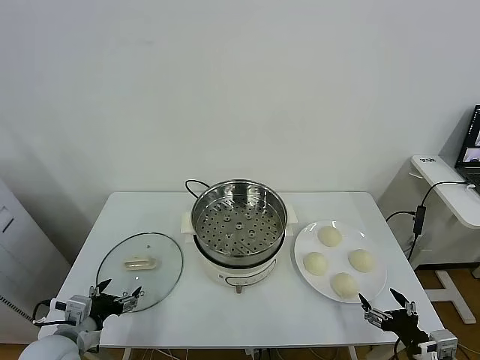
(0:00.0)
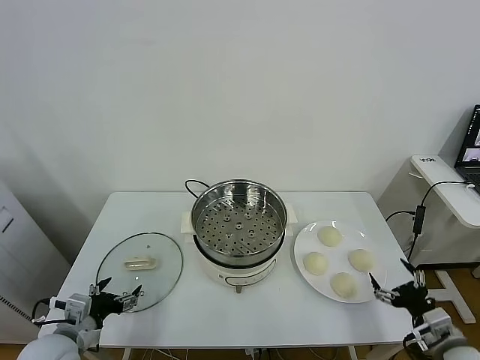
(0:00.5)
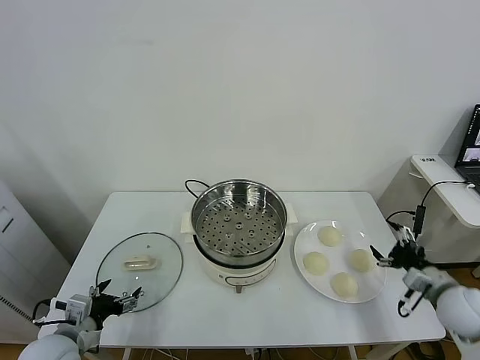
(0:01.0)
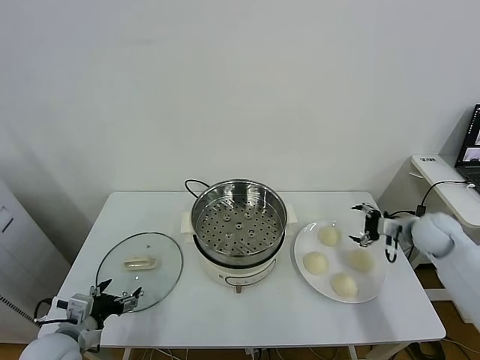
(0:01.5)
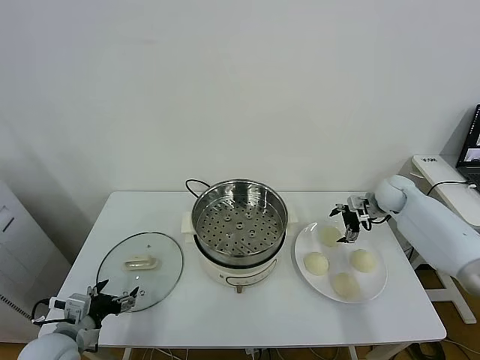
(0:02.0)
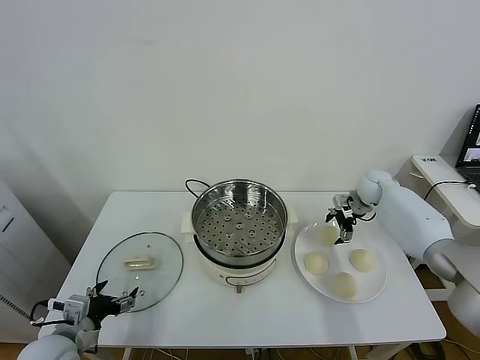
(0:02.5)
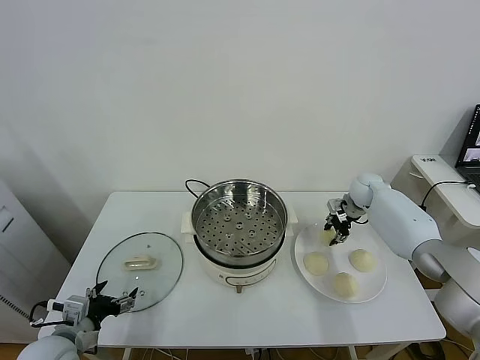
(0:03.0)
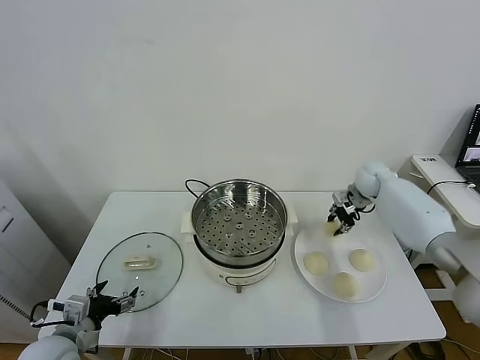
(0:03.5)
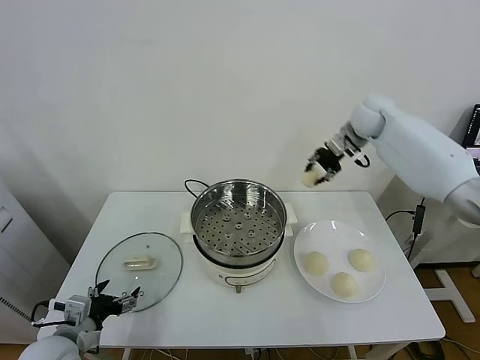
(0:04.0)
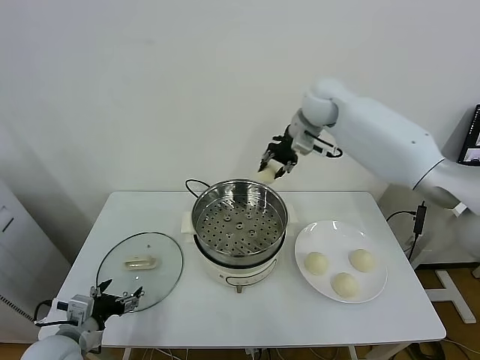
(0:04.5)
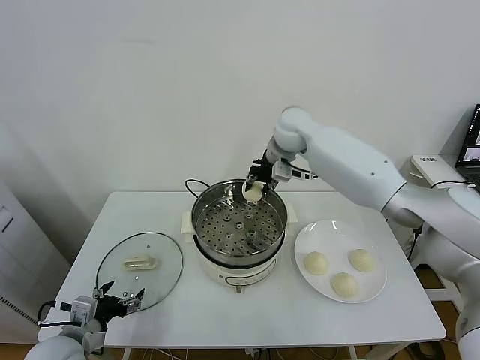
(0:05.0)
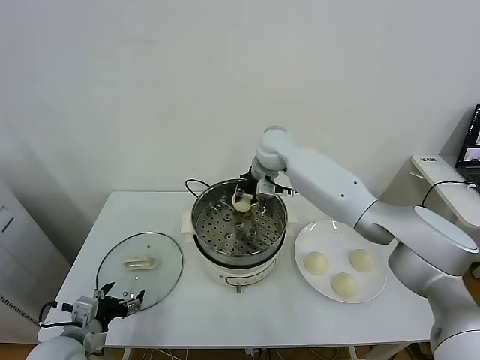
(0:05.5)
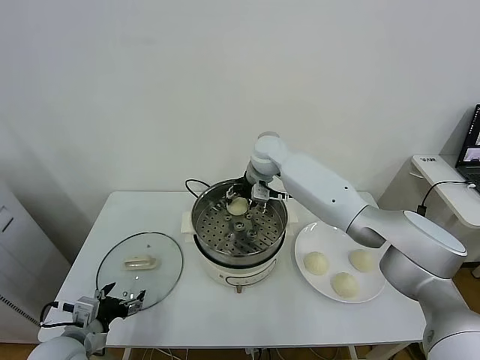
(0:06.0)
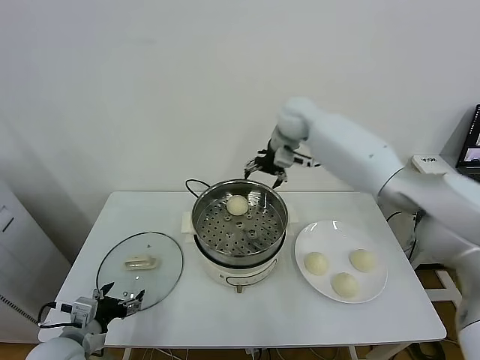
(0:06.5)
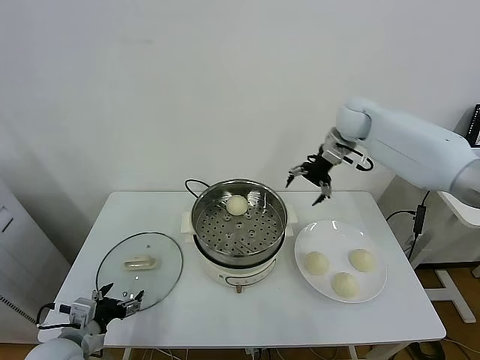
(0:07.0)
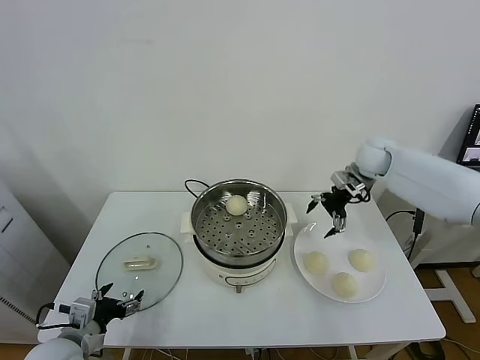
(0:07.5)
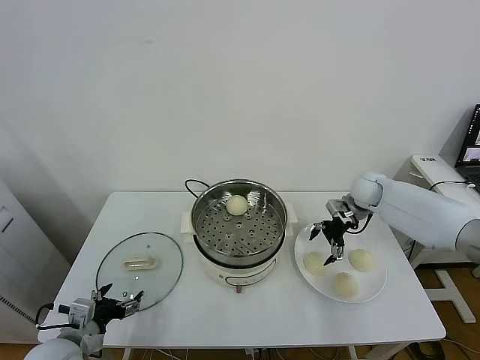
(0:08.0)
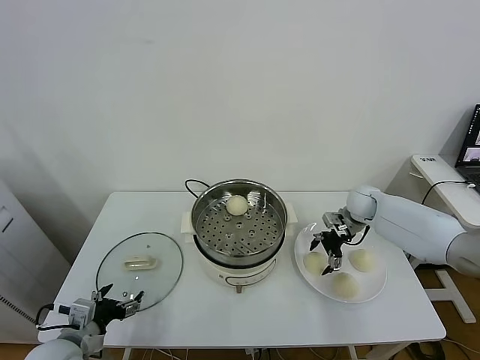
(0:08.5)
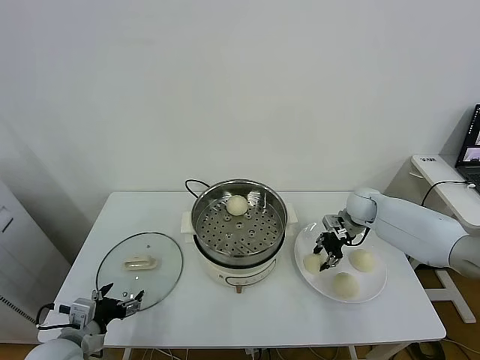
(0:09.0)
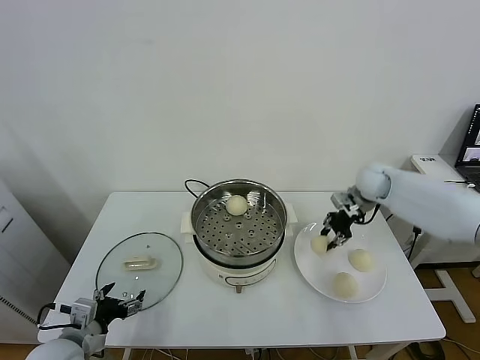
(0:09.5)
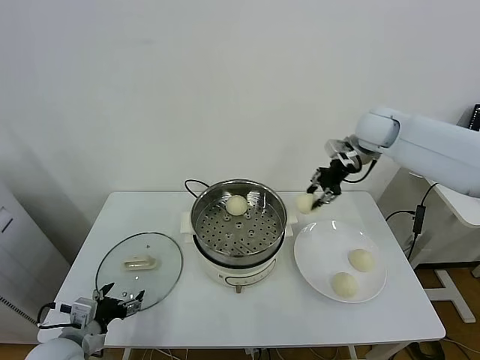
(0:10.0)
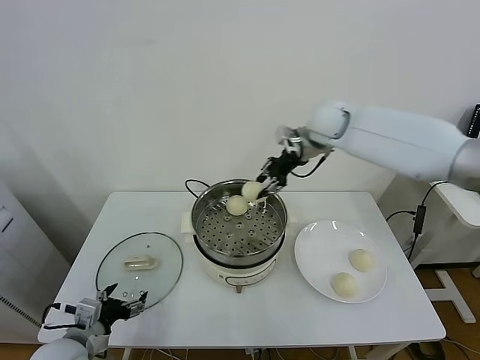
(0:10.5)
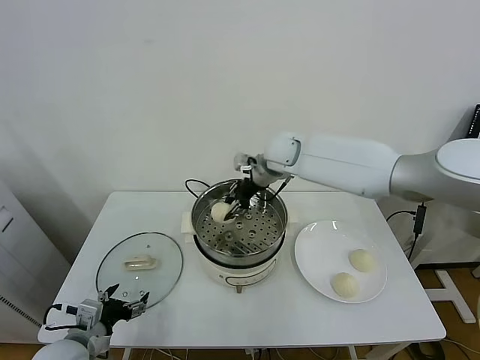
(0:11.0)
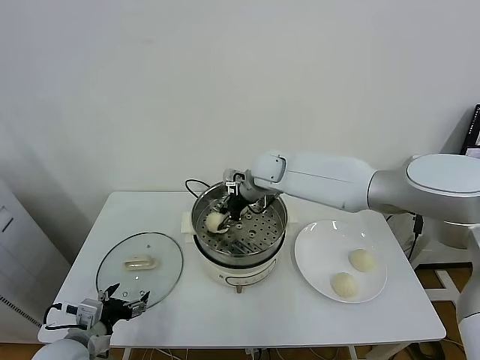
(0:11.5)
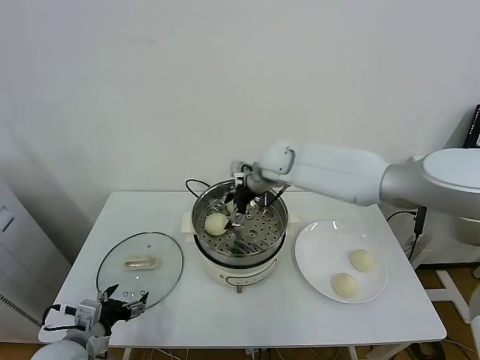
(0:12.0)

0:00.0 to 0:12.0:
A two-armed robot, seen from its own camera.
Task of the whole recording: take steamed baozi put them in steamer.
Step, 0:00.0 to 0:02.5: Grasp the baozi in the plate with right gripper.
Step, 0:03.0 to 0:06.0: Place the baozi on the steamer with right gripper.
Step, 0:06.5 to 0:08.5: Grasp the baozi in the plate with right gripper.
Step, 0:09.0 to 0:12.0: Place the baozi on the steamer with right gripper.
0:02.0 to 0:04.0: The right gripper travels upward and to the left by some 25 cm, and closes up.
0:04.0 to 0:06.0: The right gripper goes approximately 20 cm to the left and downward, and opens its fingers.
0:06.0 to 0:08.0: The right gripper is displaced to the right and downward by approximately 30 cm.
0:08.0 to 0:10.0: The right gripper goes approximately 20 cm upward, and closes its fingers.
0:10.0 to 0:12.0: The right gripper goes some 20 cm to the left and downward, and opens up.

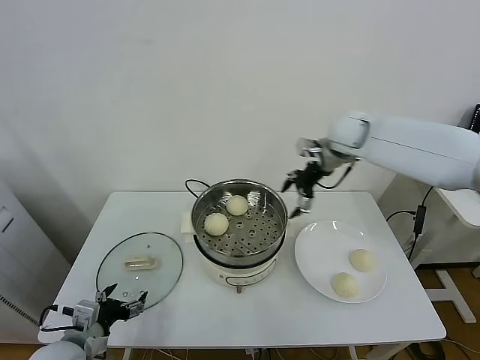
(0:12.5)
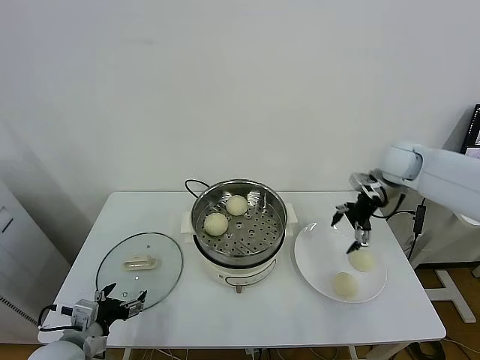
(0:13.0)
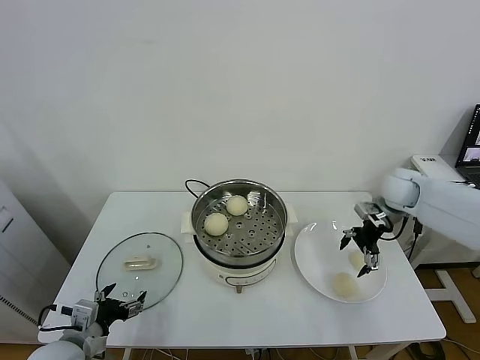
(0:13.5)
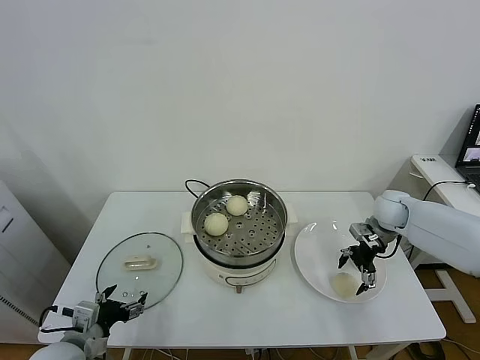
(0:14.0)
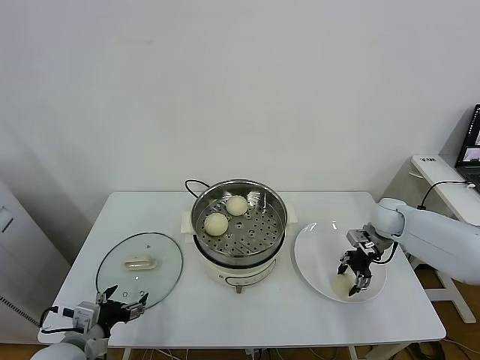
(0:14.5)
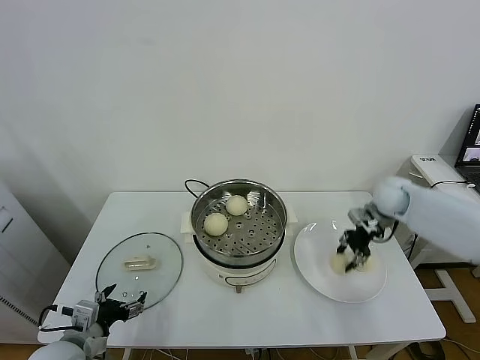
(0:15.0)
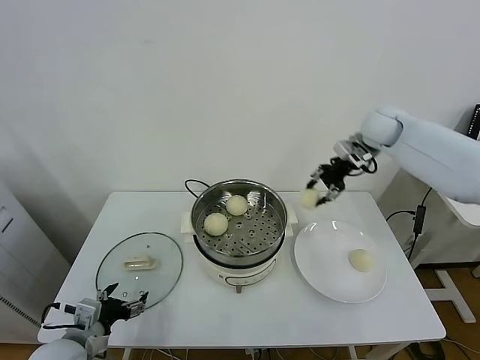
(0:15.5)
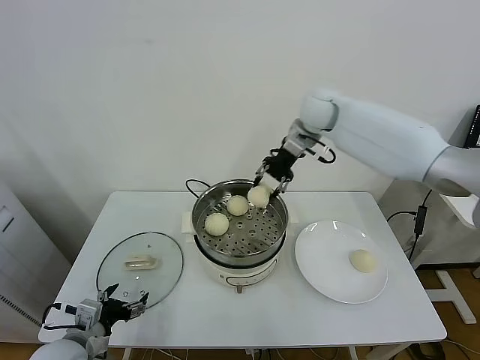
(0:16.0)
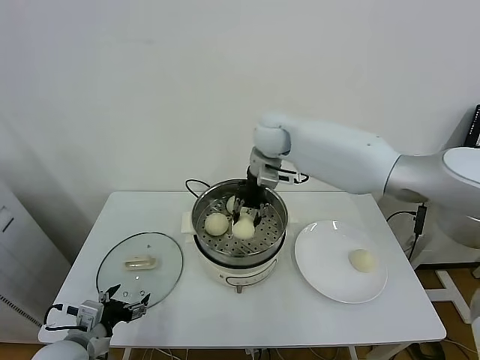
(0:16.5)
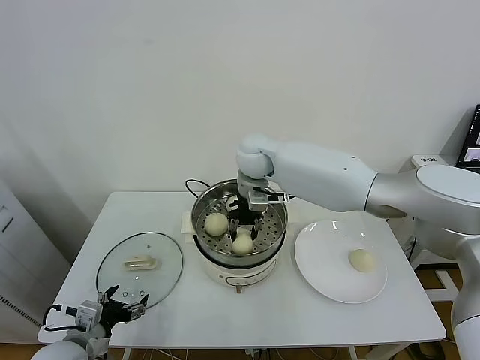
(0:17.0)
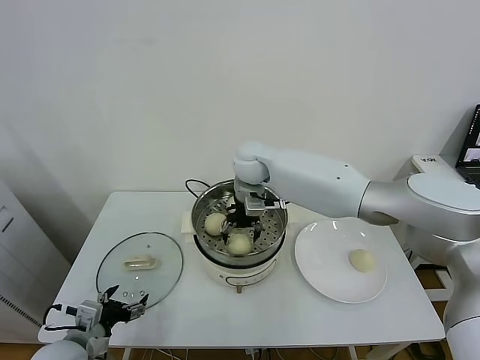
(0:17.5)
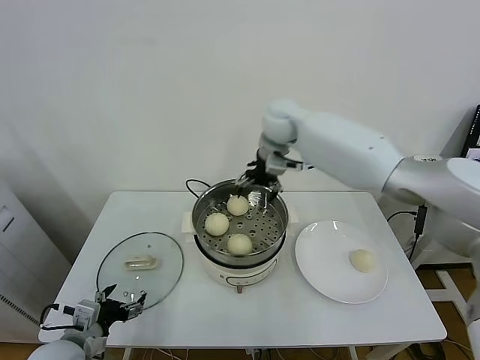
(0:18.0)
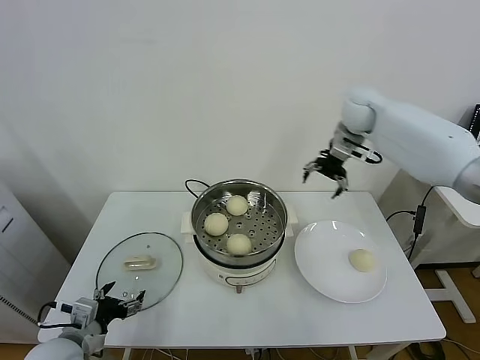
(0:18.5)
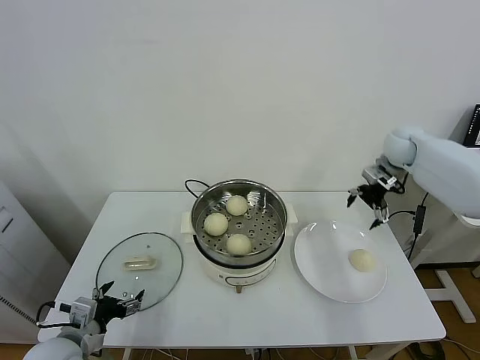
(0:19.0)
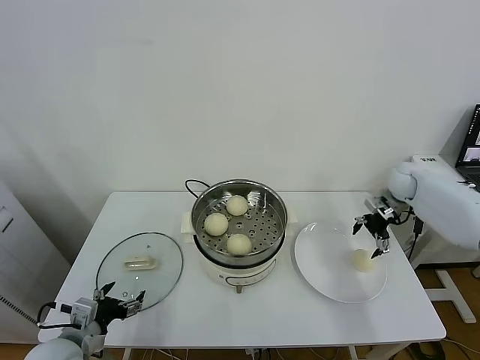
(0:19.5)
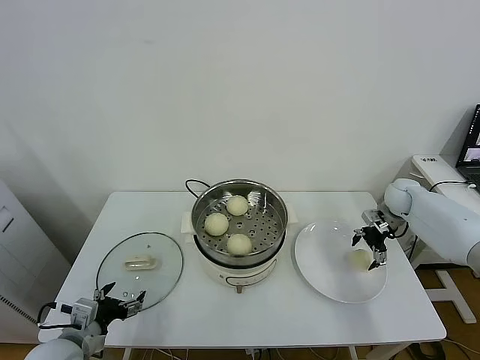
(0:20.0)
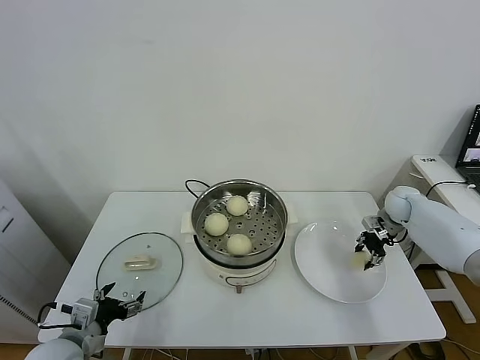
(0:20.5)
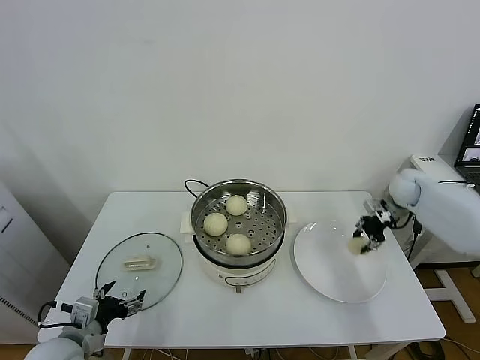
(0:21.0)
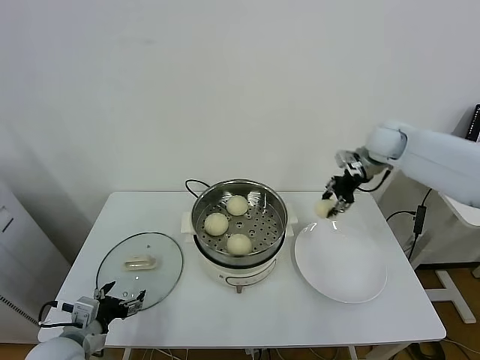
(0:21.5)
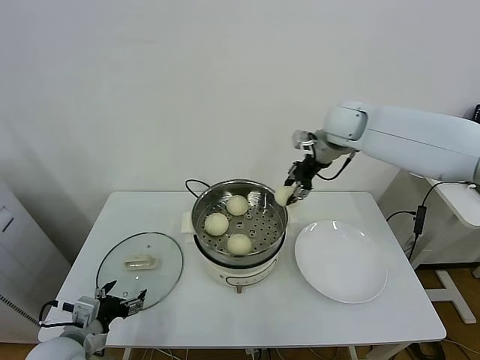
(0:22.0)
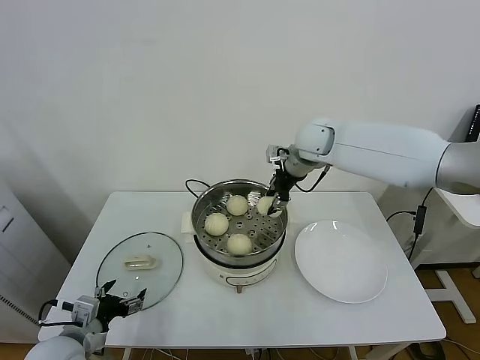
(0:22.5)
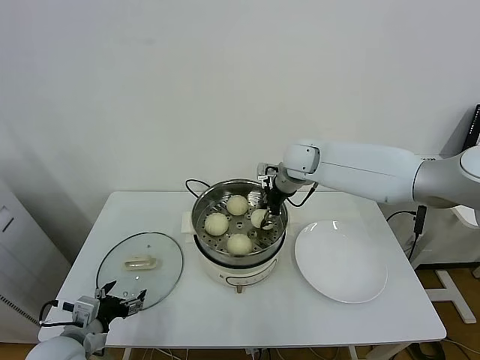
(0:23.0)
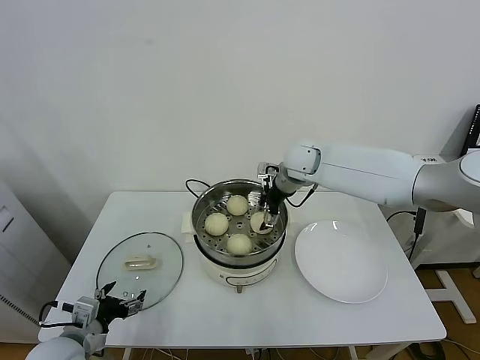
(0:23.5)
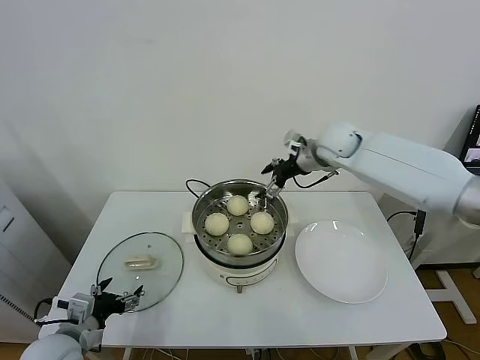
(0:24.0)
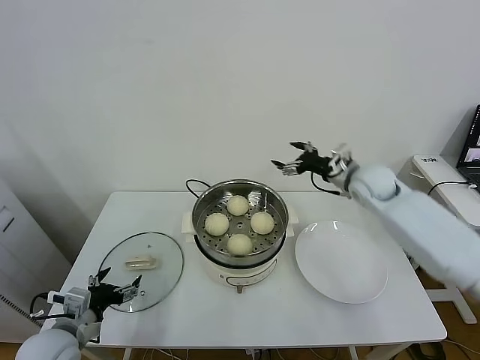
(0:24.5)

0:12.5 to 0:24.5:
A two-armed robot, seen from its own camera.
Task of the whole recording: take steamed baozi put them in steamer.
Step, 0:12.5 to 0:14.0: Grasp the baozi in the plate with right gripper.
Step, 0:14.5 to 0:17.5: Place the baozi on the steamer with right gripper.
Step, 0:18.0 to 0:20.5: Grasp the baozi in the plate with right gripper.
Step, 0:21.0 to 0:23.5: Place the baozi on the steamer with right gripper.
0:12.5 to 0:14.5: The right gripper moves downward and to the right, approximately 25 cm, and closes its fingers.
0:14.5 to 0:16.5: The right gripper is displaced to the left and upward by roughly 40 cm.
0:16.5 to 0:18.5: The right gripper moves to the right, about 25 cm, and opens up.
0:18.5 to 0:20.5: The right gripper is displaced downward and to the right by about 30 cm, and closes.
0:20.5 to 0:22.5: The right gripper goes some 35 cm to the left and upward.
0:22.5 to 0:24.5: The right gripper shifts approximately 15 cm to the right and downward, and opens up.

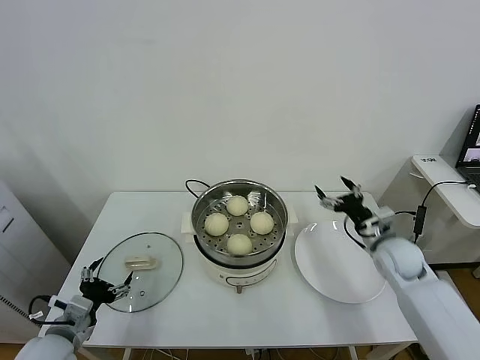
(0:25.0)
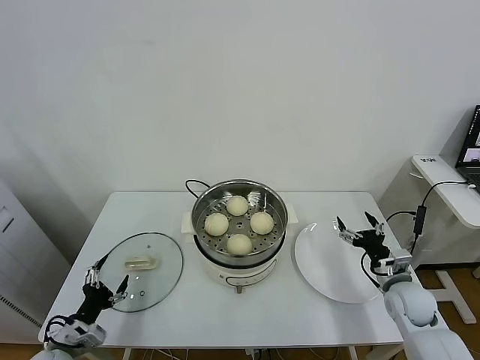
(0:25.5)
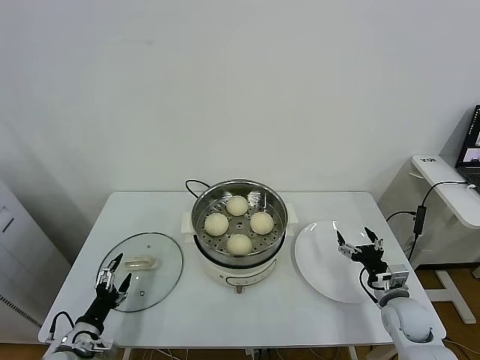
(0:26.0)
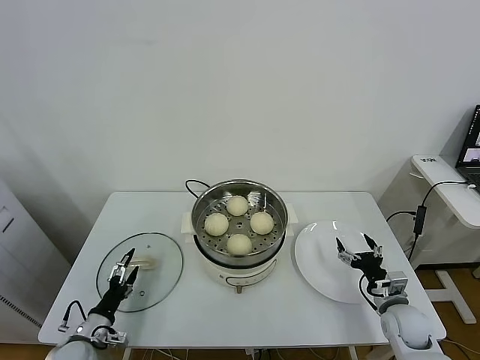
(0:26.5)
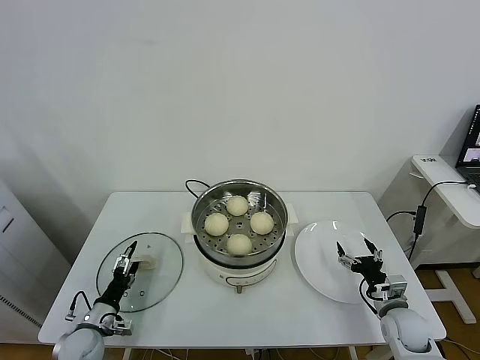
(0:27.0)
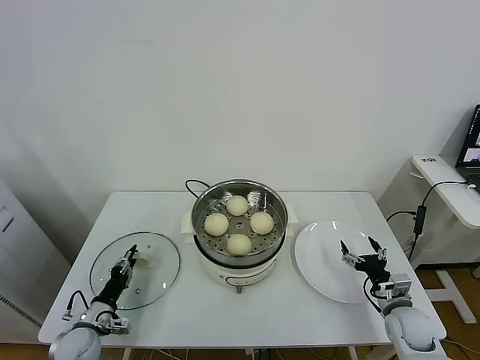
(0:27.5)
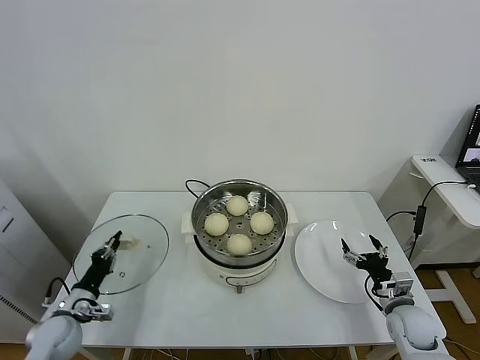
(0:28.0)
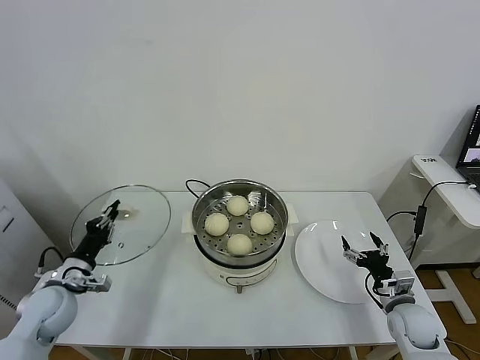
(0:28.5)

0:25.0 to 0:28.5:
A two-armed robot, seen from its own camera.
Task of the whole recording: take steamed baozi put them in steamer.
Step, 0:25.0 to 0:27.5: Grasp the pot lid with left gripper.
0:25.0 to 0:27.0: The left gripper moves downward, approximately 15 cm. Meanwhile the right gripper shifts approximately 15 cm downward and backward.
0:27.0 to 0:28.5: The left gripper is displaced upward by roughly 15 cm, and closes up.
